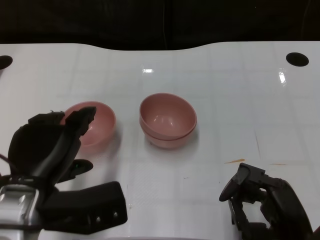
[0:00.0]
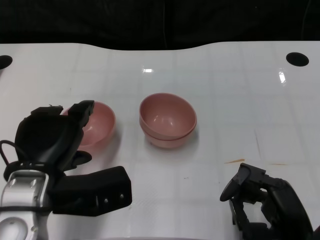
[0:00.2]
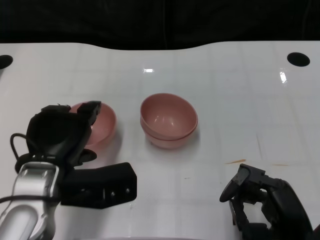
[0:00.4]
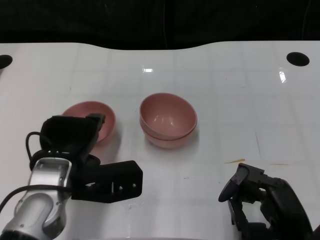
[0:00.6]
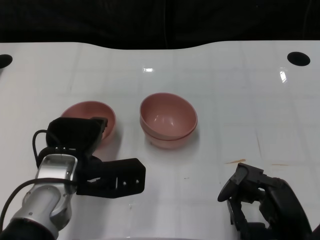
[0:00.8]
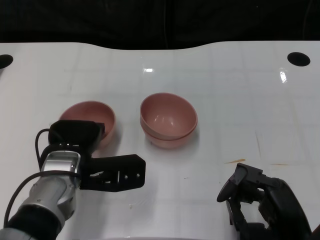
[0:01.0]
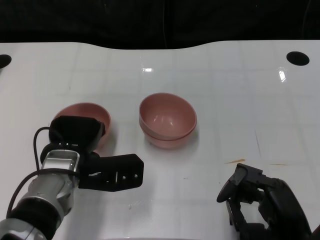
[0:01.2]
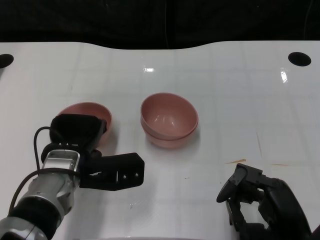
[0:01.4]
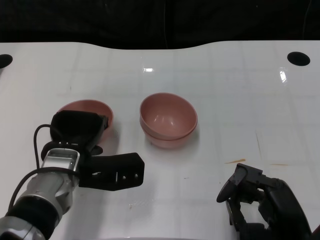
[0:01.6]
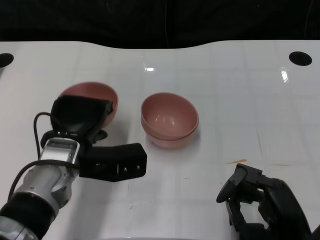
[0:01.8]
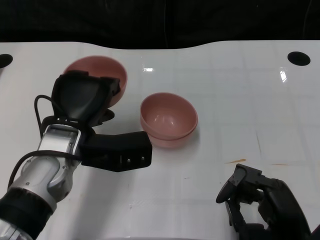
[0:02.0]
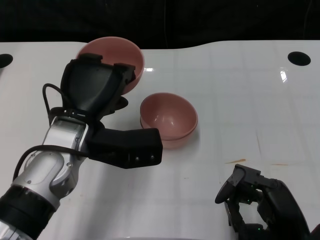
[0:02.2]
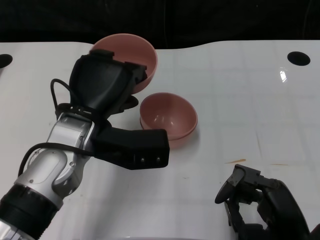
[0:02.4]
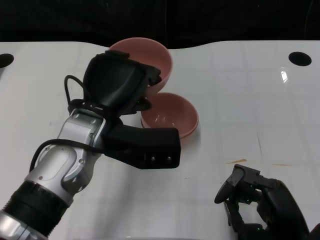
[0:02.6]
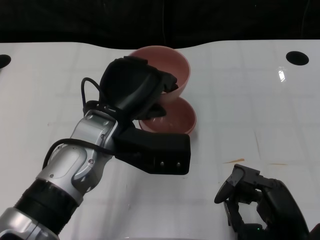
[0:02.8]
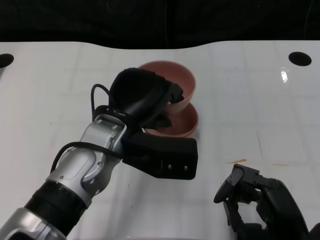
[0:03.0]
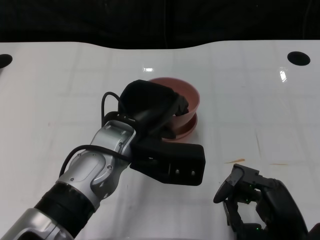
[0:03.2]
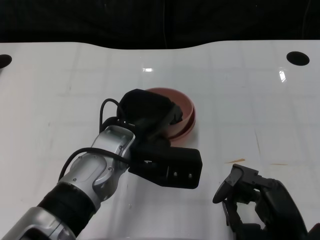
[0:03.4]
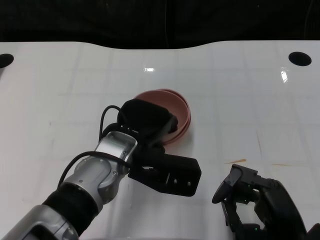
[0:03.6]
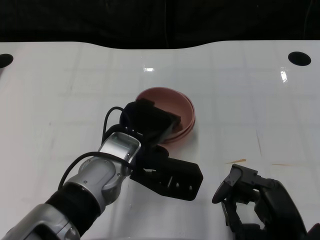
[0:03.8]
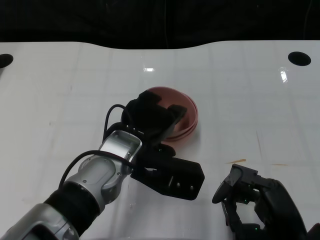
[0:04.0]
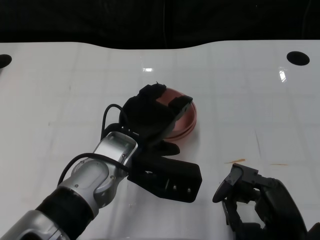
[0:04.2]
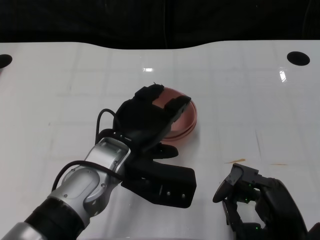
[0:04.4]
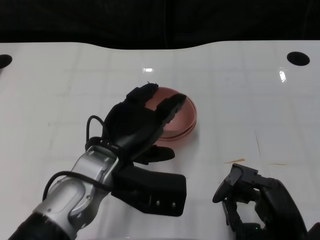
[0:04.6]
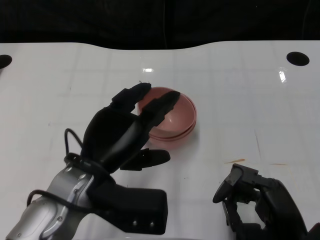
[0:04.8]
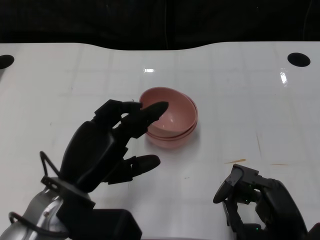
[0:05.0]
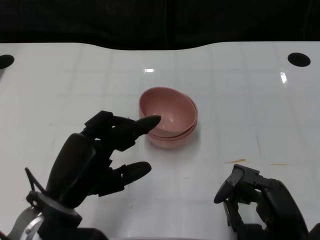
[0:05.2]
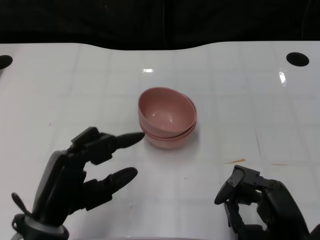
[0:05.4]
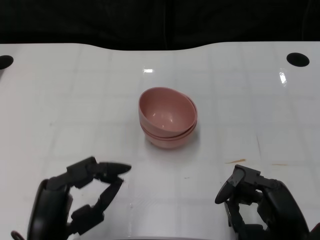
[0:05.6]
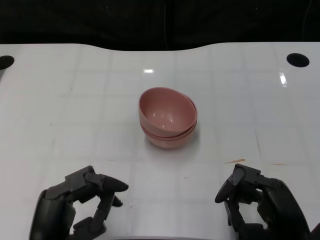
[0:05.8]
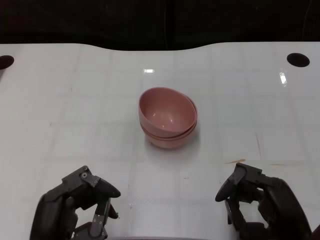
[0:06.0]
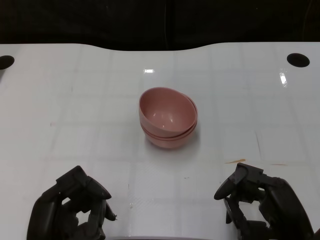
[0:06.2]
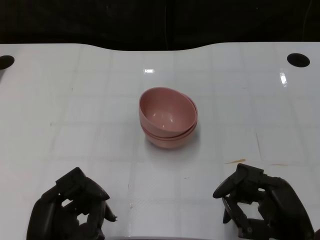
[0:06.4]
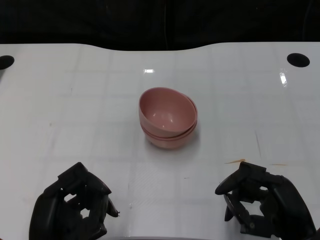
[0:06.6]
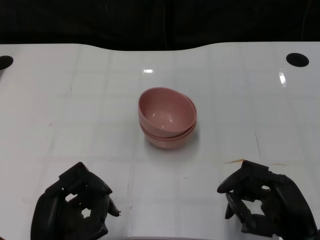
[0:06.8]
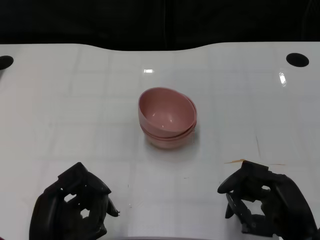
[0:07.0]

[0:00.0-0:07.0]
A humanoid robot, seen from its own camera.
Task of the whole recording: Pick up the bowl on one side of the table and place it on top of the middle bowl, then pick up the bowl on the other side of the table and place it on top of the middle bowls.
Step, 0:01.8 to 0:05.0: Place the bowl on the left onto the bowl in the middle with left gripper.
0:00.0 to 0:01.4: The left hand is displaced forward and downward by about 10 cm.
0:01.4 to 0:02.8: The left hand shifts some 10 cm upward and to the right.
0:04.2 to 0:05.6: The left hand travels backward and to the left by some 15 cm.

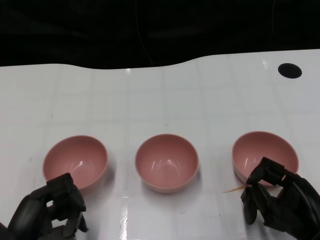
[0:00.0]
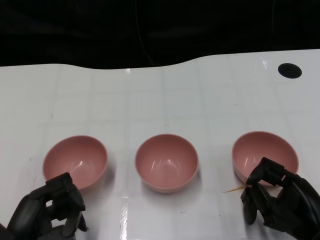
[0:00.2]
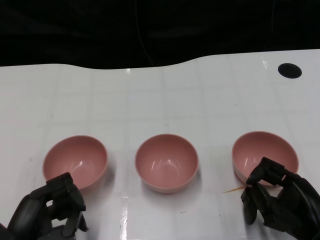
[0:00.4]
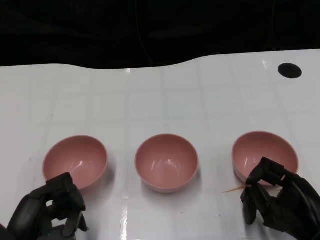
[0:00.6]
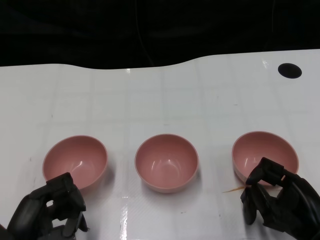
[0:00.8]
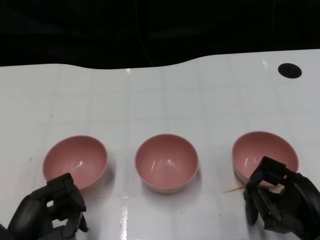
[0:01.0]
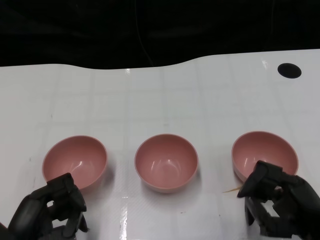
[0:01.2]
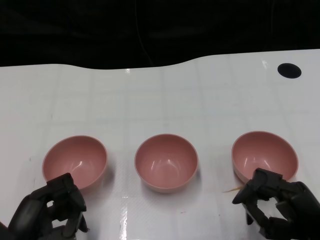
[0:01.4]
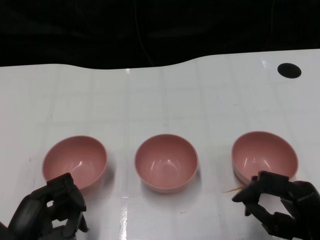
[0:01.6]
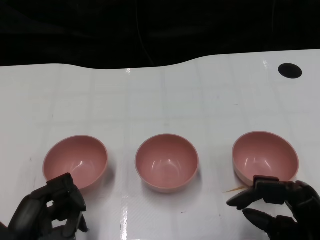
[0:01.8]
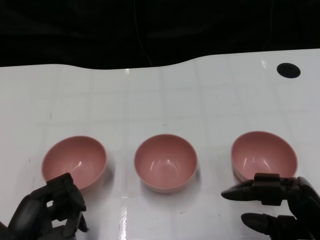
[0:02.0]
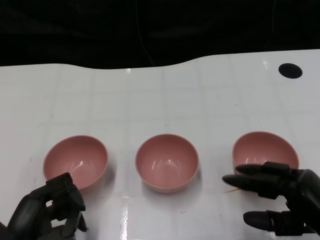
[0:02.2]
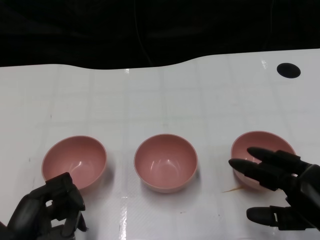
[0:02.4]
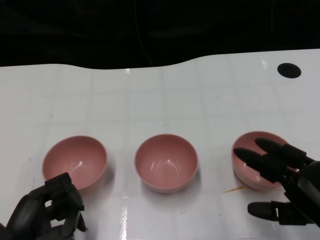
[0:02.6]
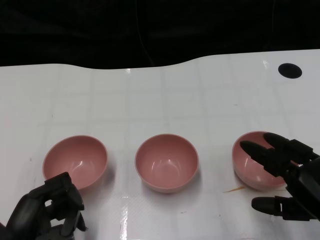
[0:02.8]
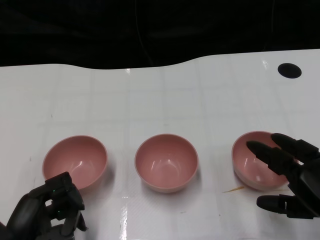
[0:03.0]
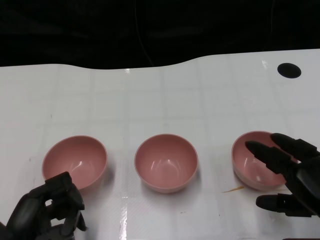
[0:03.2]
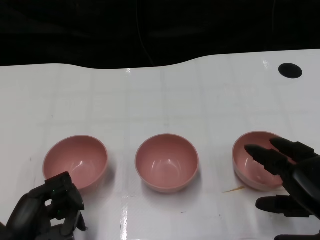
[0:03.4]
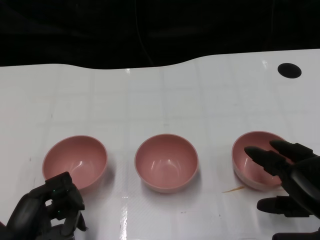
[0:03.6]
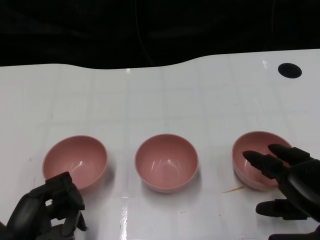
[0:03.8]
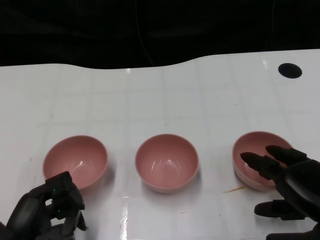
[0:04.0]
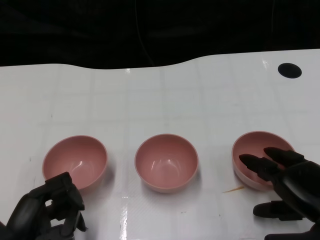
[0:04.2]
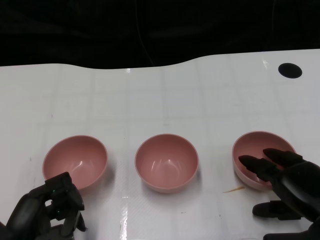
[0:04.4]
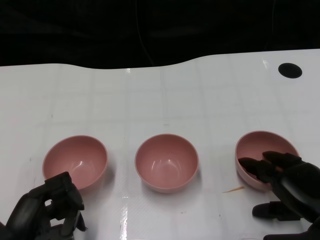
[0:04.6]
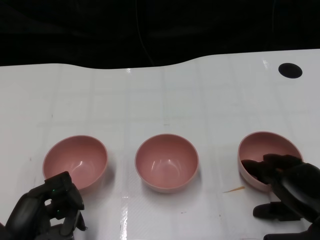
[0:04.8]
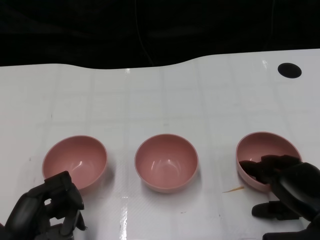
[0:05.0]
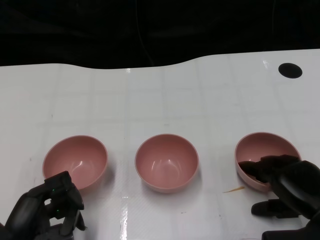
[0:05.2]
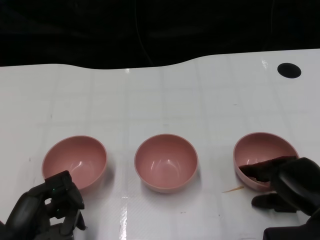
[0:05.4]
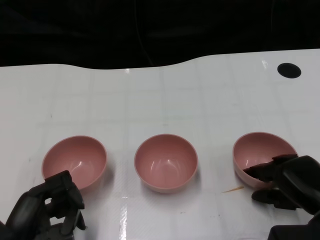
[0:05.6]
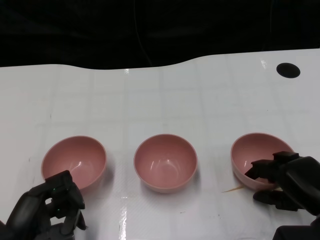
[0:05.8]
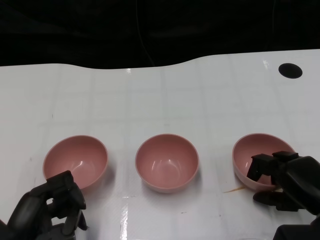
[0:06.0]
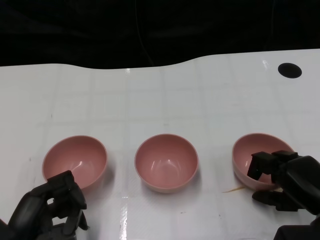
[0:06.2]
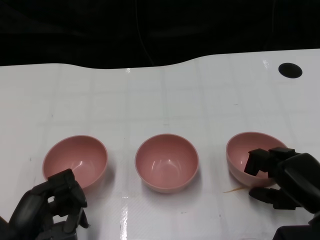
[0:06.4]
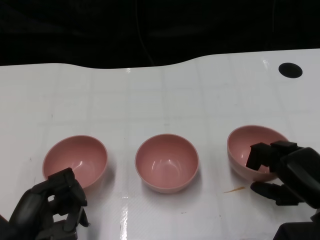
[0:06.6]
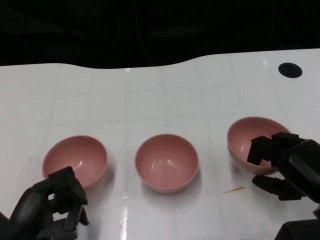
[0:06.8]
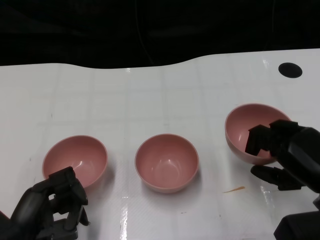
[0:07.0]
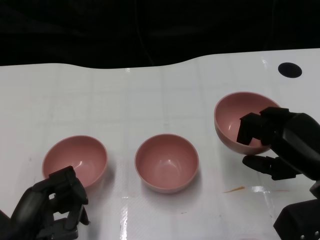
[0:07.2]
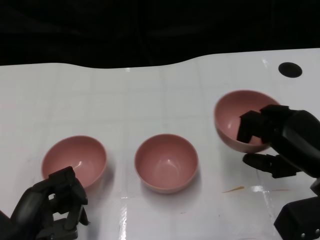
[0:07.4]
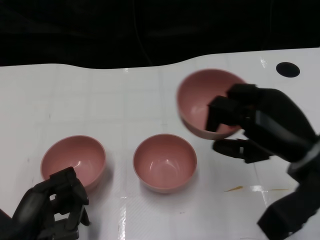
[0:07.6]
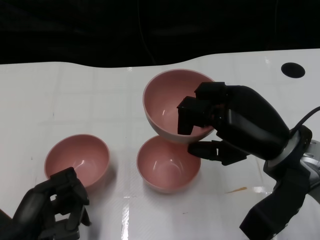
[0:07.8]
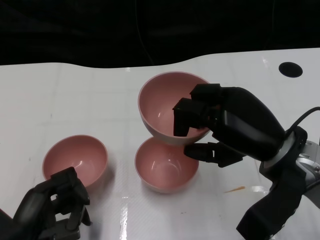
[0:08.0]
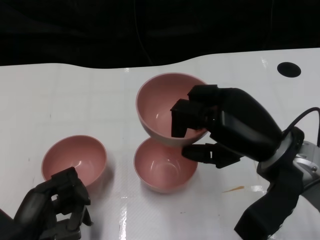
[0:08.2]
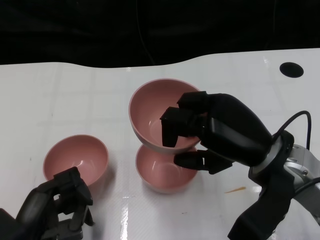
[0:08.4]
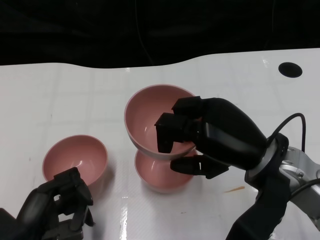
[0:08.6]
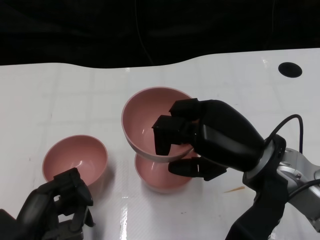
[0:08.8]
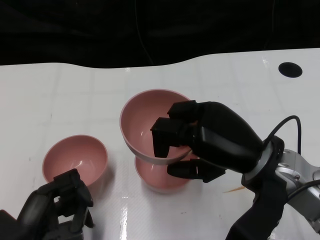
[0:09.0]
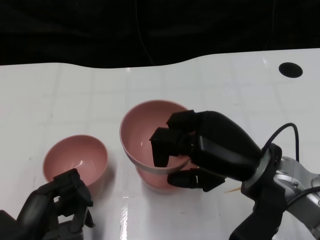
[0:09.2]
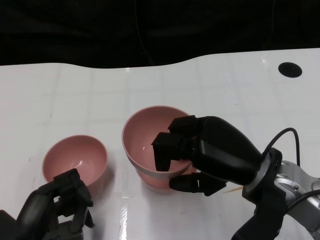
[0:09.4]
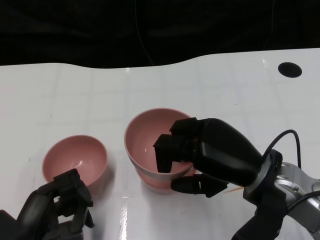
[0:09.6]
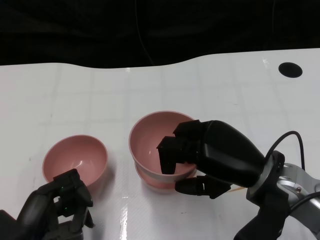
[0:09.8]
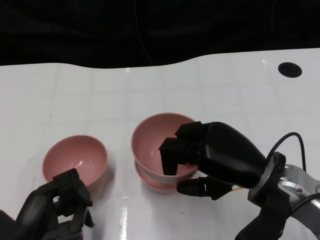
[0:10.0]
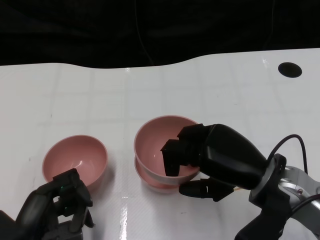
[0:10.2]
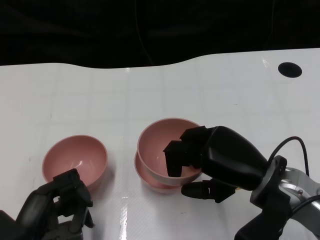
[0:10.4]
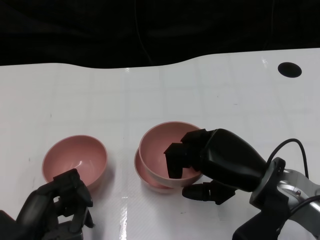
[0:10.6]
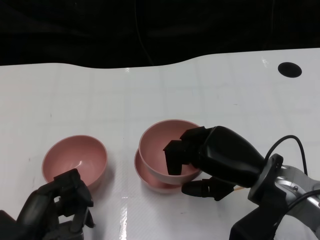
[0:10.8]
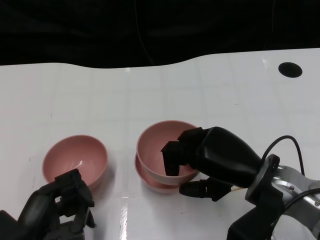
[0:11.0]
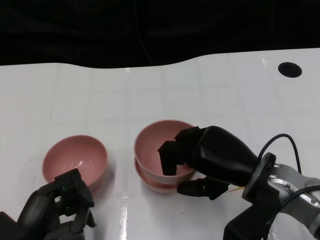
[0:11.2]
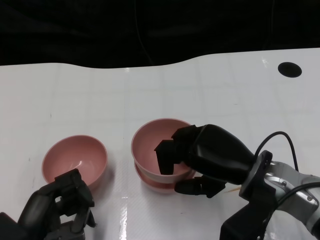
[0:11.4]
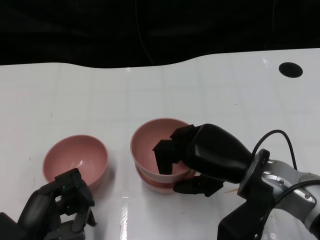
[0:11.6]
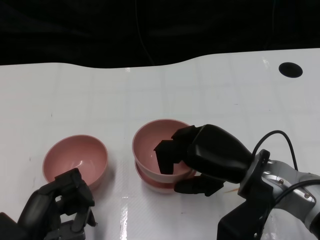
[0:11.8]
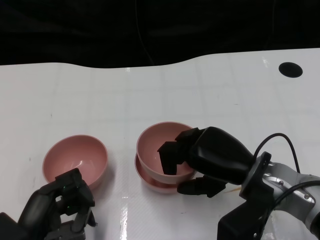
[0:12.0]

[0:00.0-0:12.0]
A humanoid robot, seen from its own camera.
Task of the whole recording: Pick up the bowl on one side of the table and place it on top of the middle bowl, then pick up the bowl on the other side of the table and place it on top of the middle bowls.
Step, 0:01.0 to 0:06.4: Grasp the bowl on the right with the right gripper.
0:01.6 to 0:03.0: The right hand changes place by about 5 cm.
0:03.0 to 0:06.0: The hands move only a little.
0:06.0 to 0:07.6: The right hand moves upward, about 10 cm.
0:07.6 to 0:09.0: The right hand moves to the left, roughly 5 cm.
0:09.0 to 0:12.0: The hands make only small movements.

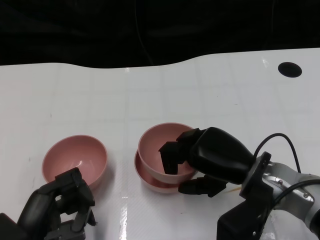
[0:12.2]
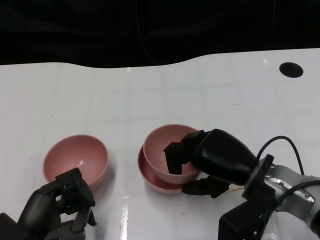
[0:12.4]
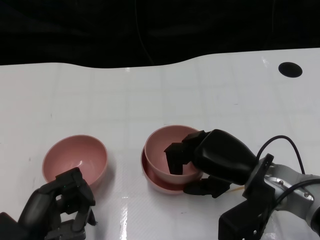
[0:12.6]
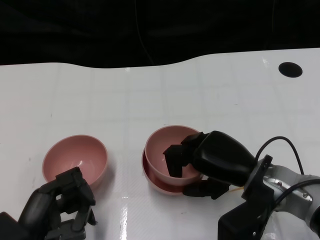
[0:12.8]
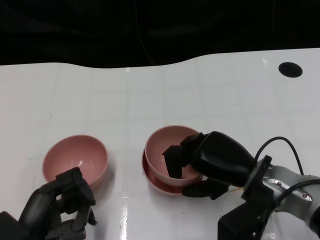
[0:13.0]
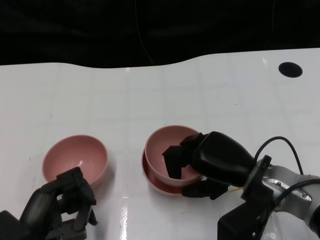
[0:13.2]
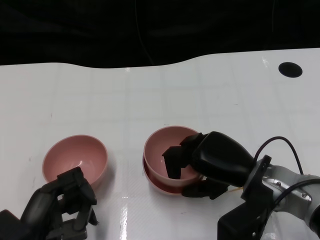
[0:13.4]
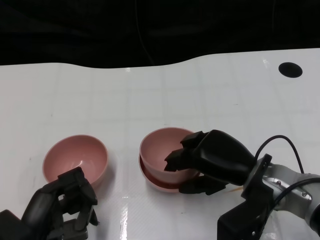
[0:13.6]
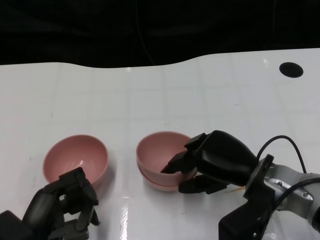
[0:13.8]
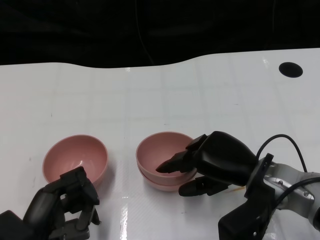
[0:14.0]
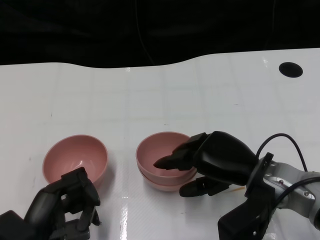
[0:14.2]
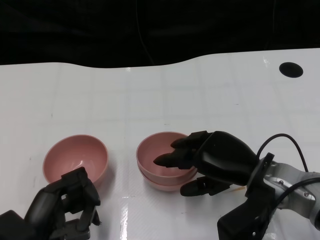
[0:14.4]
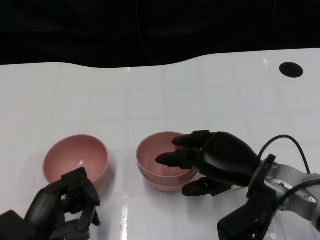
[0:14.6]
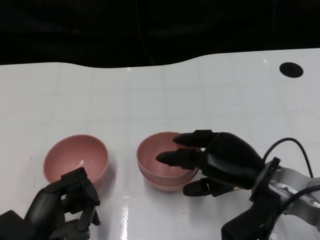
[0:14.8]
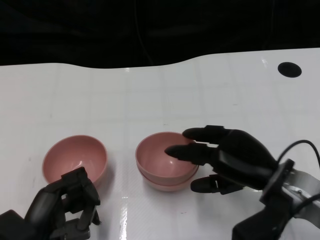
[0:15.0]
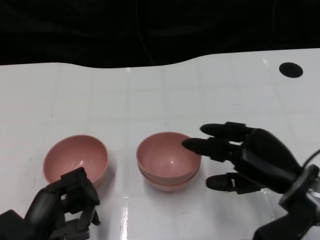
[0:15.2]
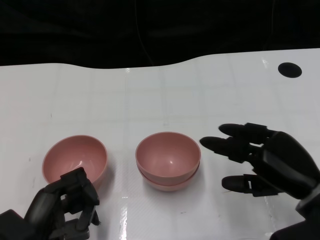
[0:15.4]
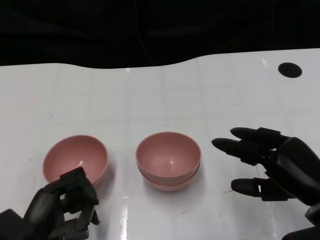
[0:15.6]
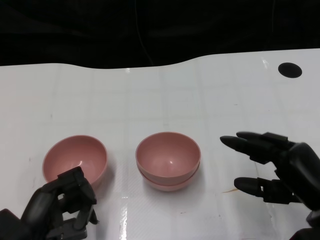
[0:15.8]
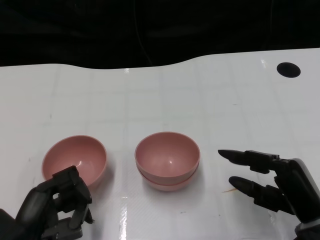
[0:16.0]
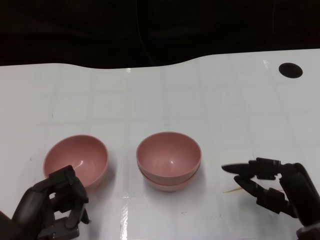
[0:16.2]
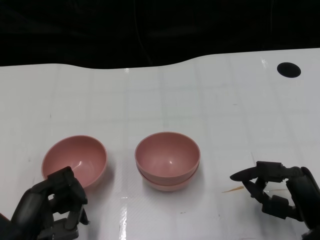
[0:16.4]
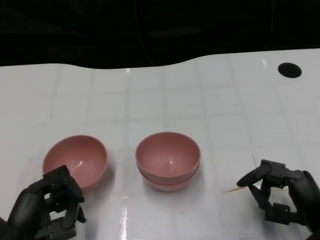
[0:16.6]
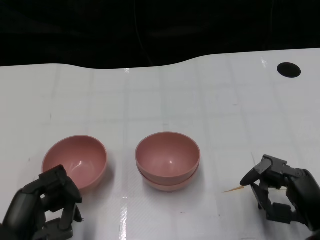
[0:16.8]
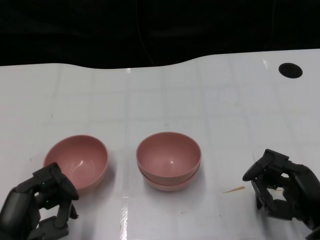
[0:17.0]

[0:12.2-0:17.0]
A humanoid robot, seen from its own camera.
Task of the whole recording: Pick up the bowl on one side of the table and place it on top of the middle bowl, then pick up the bowl on the other side of the table and place it on top of the middle bowls.
Step, 0:12.2 to 0:15.0: Place the bowl on the right onto the bowl in the middle with right gripper.
0:12.2 to 0:13.8: Both hands stay put.
0:13.8 to 0:15.4: The right hand goes roughly 5 cm to the right.
0:15.4 to 0:17.0: The right hand travels downward by roughly 5 cm.
